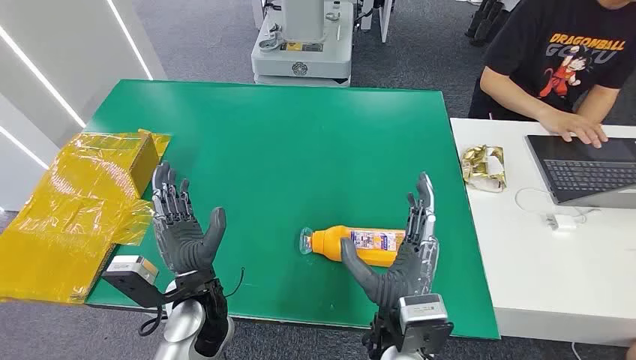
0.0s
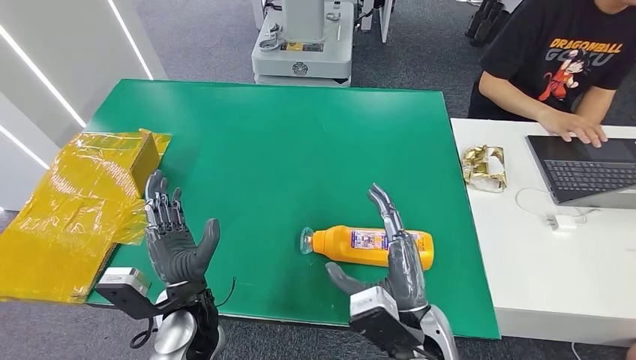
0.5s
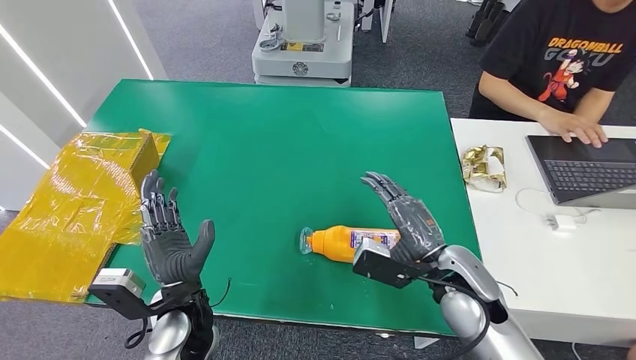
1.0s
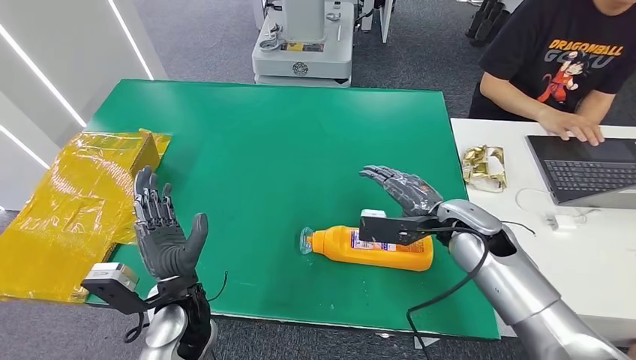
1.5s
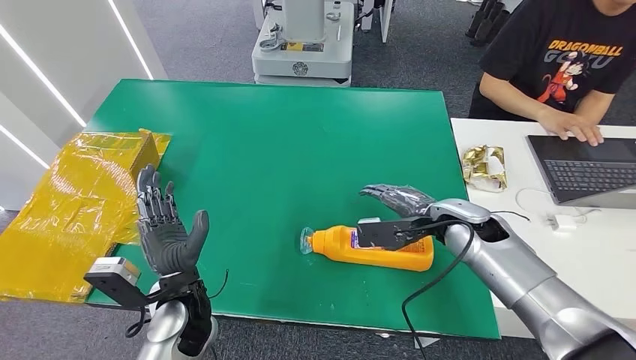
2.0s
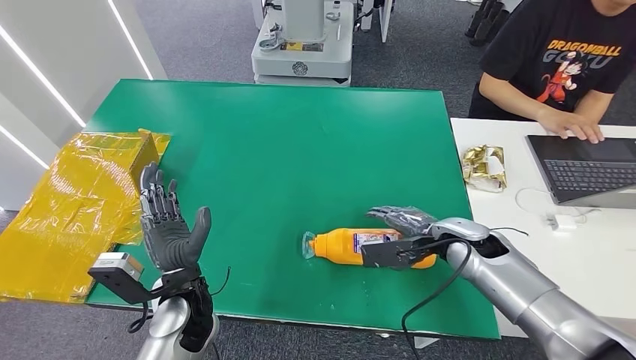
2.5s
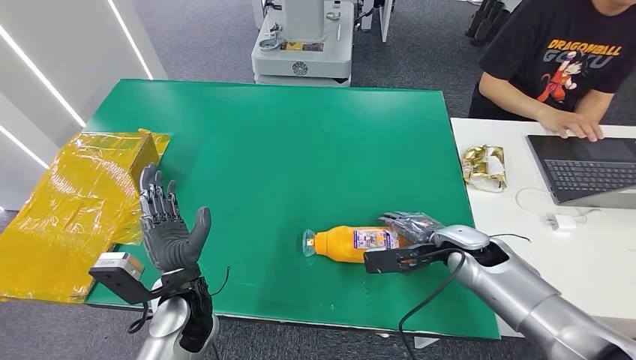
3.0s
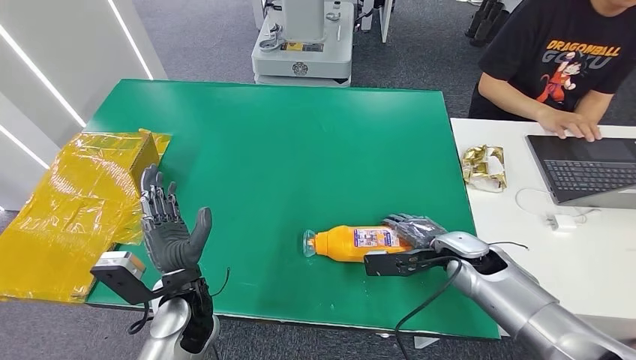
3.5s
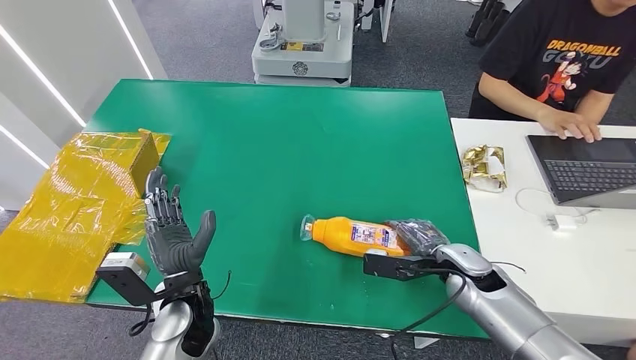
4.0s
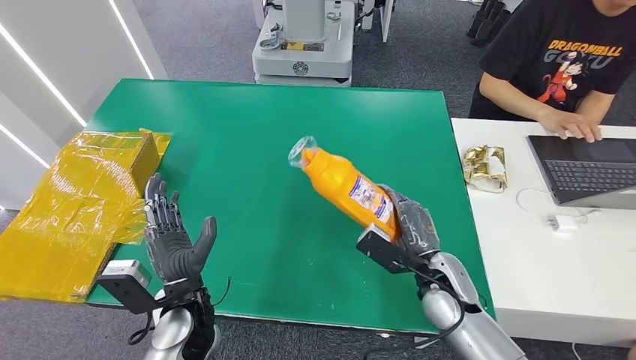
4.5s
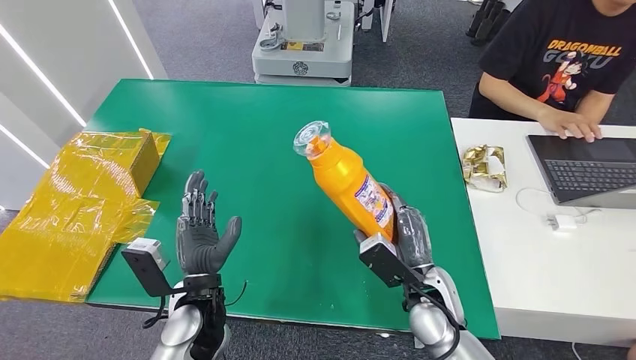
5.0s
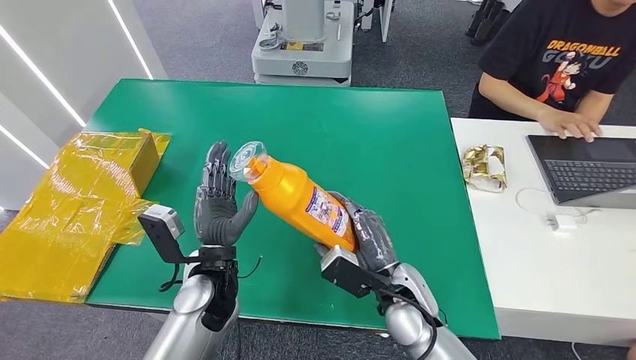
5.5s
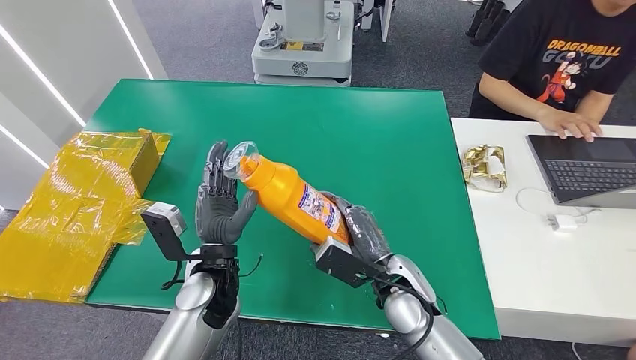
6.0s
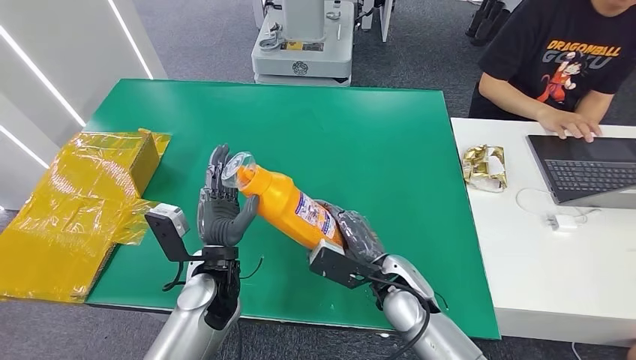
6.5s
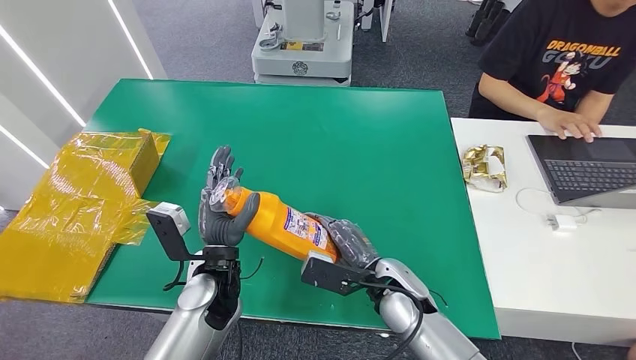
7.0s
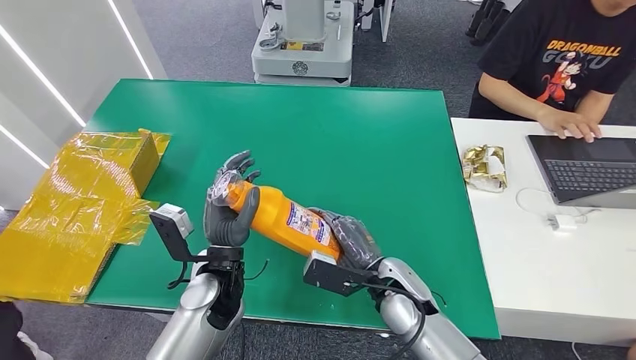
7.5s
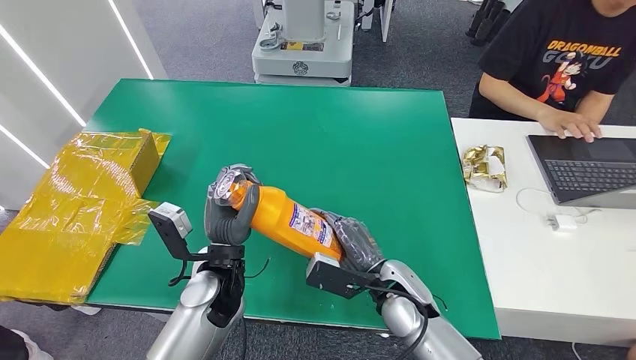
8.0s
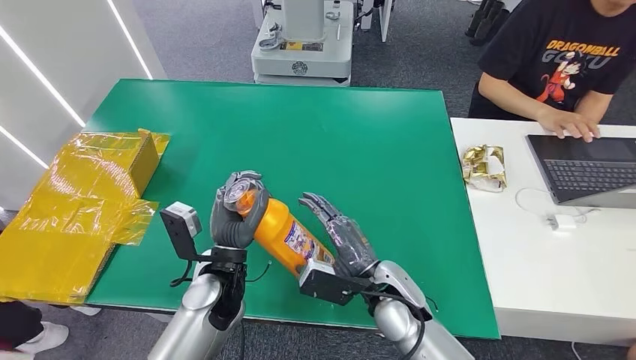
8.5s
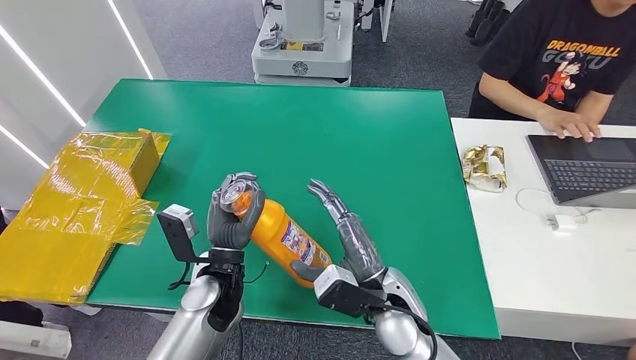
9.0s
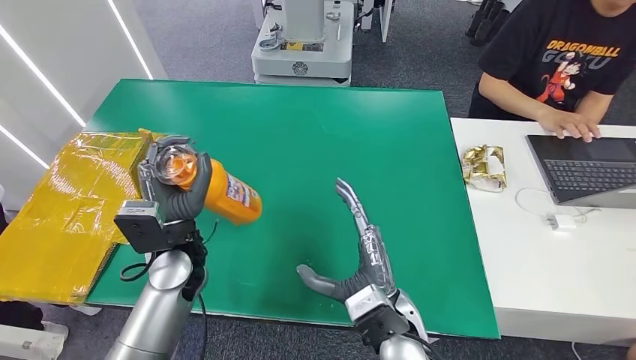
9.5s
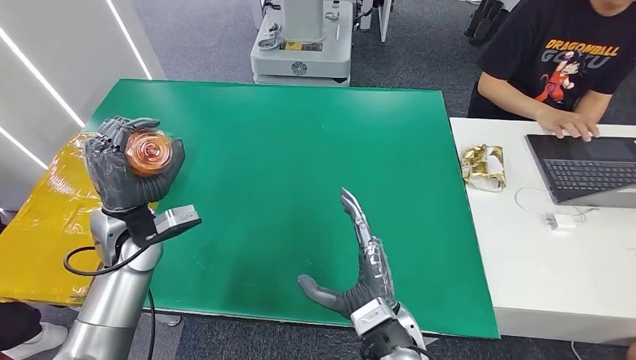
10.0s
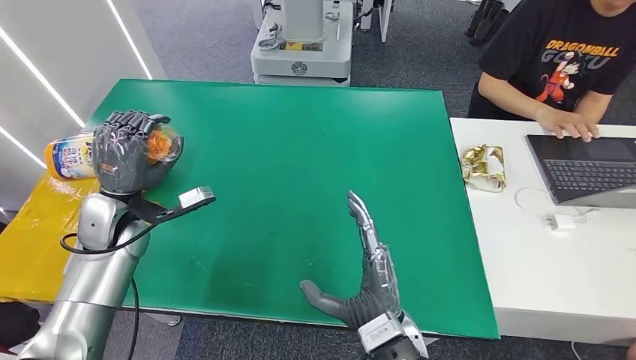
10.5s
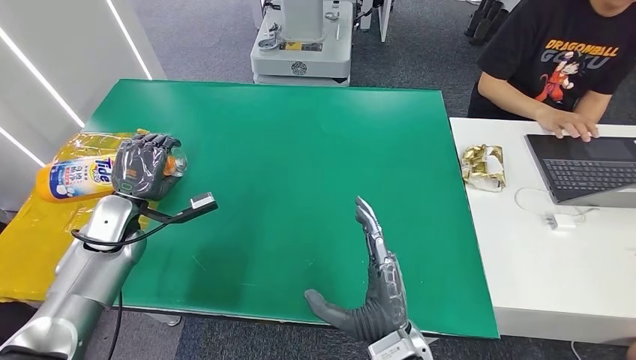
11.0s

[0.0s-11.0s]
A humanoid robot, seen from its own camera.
Step, 0.0s to 5.0s: Pick up the bottle from the table.
2.0s to 3.5s: The right hand is displaced downward by some 5 cm.
3.5s to 5.5s: The right hand heads to the left and backward, covering roughly 15 cm. Meanwhile the left hand ends up approximately 5 cm from where it was.
9.0s to 11.0s: The right hand is displaced backward by approximately 10 cm; the left hand is displaced to the left and forward by about 25 cm.

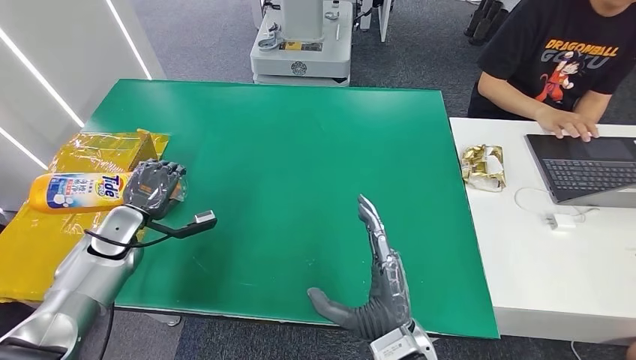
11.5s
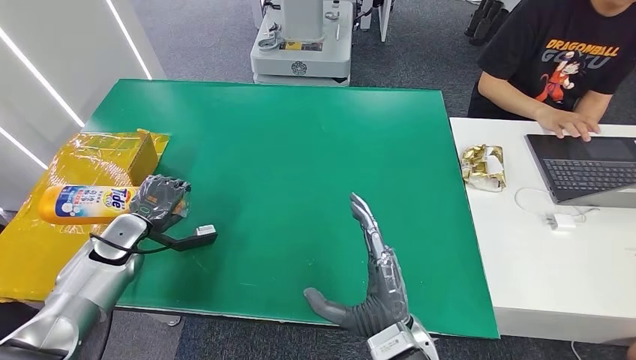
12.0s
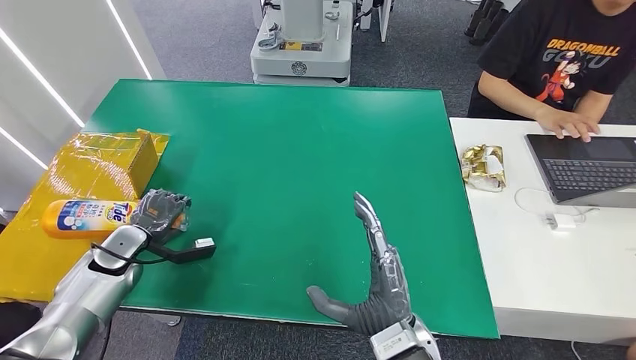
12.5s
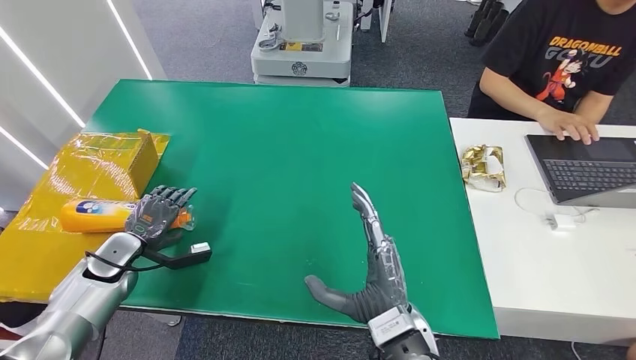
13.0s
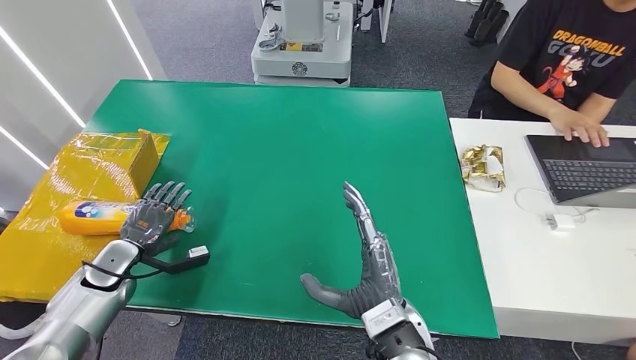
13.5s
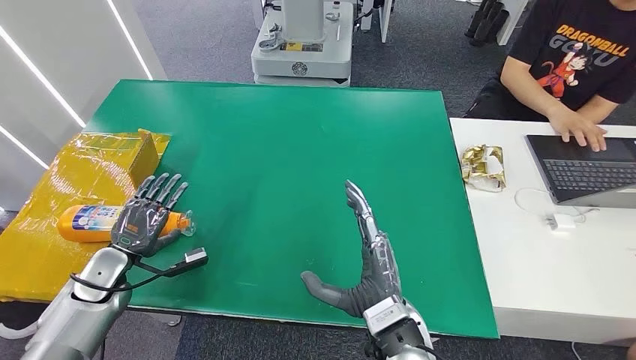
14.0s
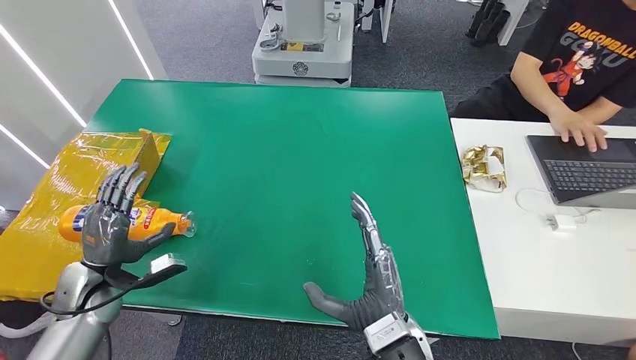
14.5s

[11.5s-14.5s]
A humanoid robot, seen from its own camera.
Step, 11.5s to 14.5s: Turn the bottle to the front side.
11.5s to 13.0s: The left hand moves about 5 cm.
13.0s to 14.5s: The left hand heads backward, covering roughly 5 cm.
